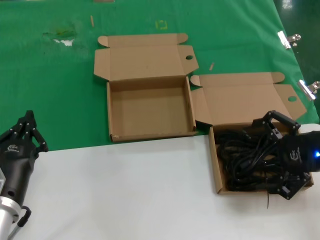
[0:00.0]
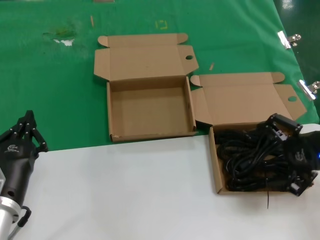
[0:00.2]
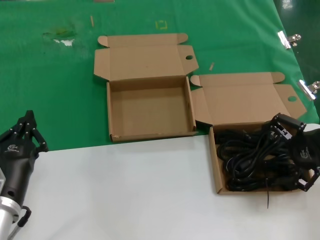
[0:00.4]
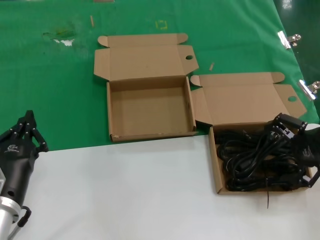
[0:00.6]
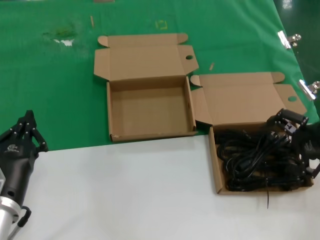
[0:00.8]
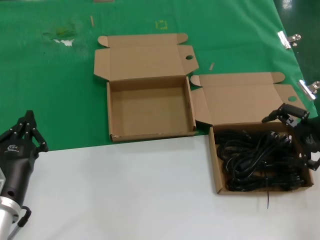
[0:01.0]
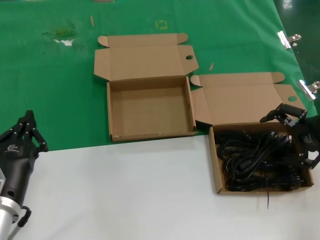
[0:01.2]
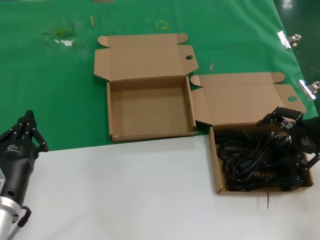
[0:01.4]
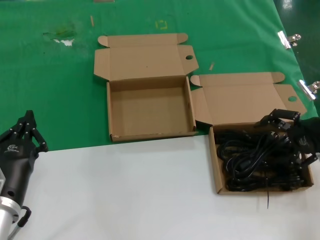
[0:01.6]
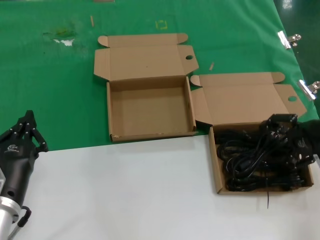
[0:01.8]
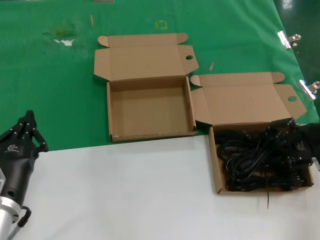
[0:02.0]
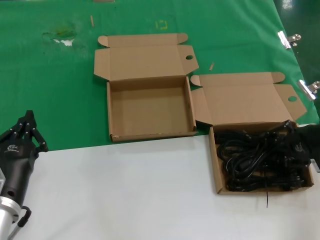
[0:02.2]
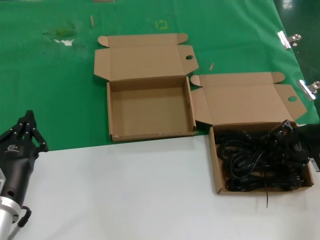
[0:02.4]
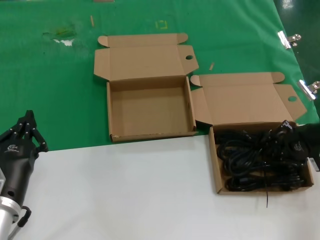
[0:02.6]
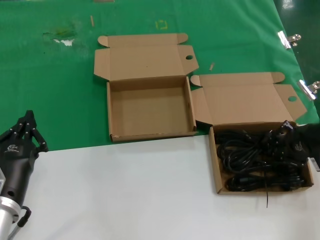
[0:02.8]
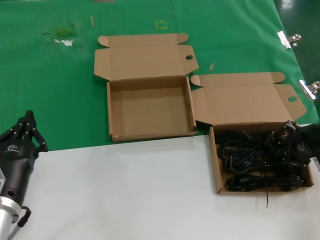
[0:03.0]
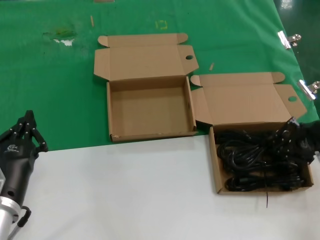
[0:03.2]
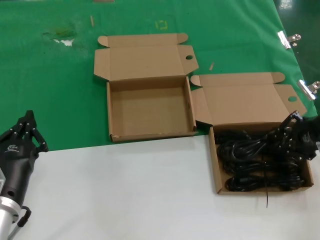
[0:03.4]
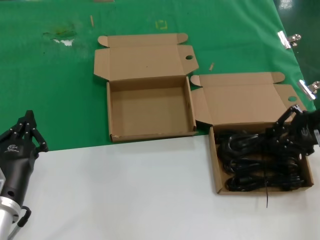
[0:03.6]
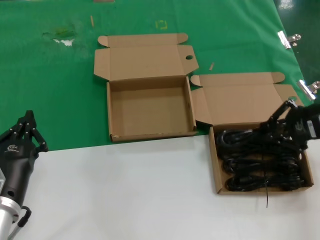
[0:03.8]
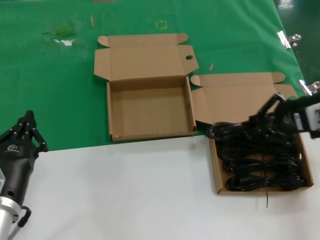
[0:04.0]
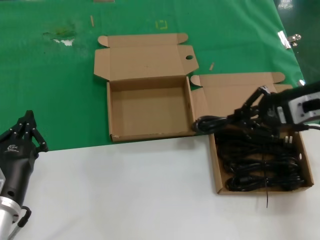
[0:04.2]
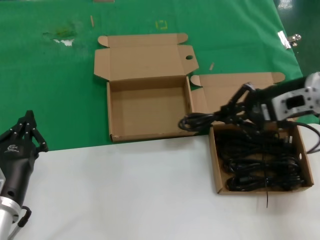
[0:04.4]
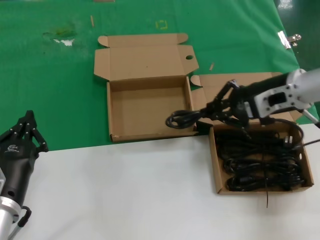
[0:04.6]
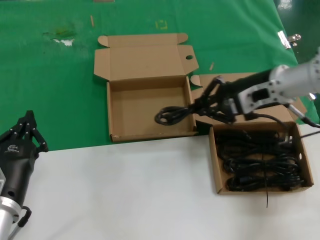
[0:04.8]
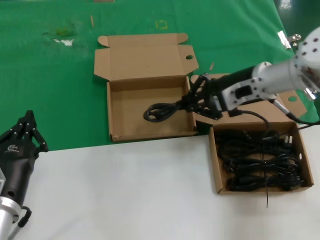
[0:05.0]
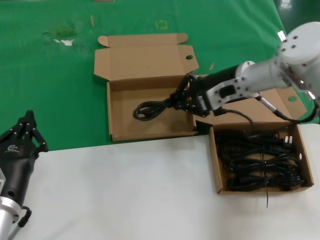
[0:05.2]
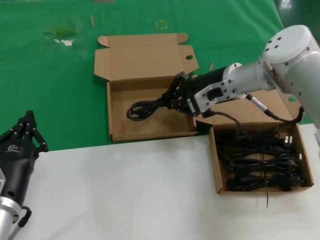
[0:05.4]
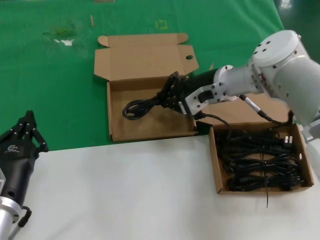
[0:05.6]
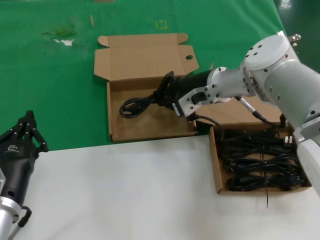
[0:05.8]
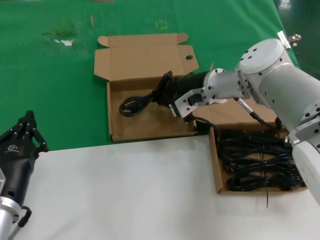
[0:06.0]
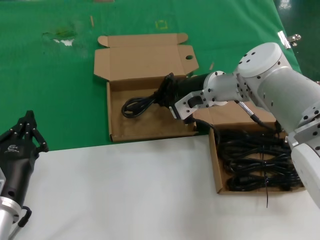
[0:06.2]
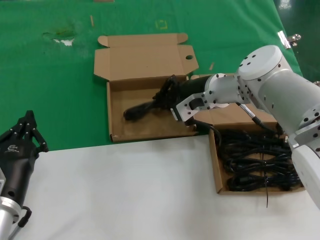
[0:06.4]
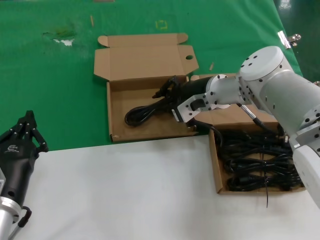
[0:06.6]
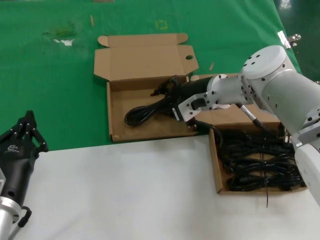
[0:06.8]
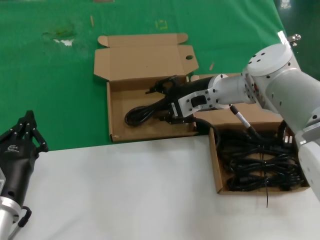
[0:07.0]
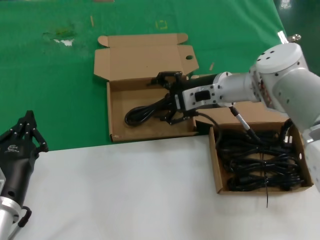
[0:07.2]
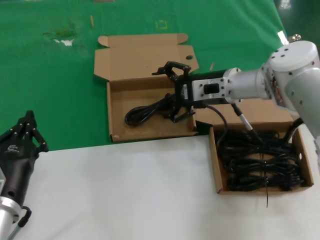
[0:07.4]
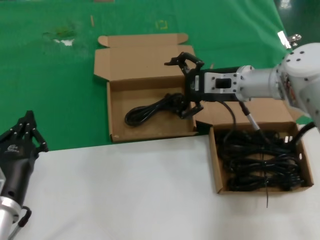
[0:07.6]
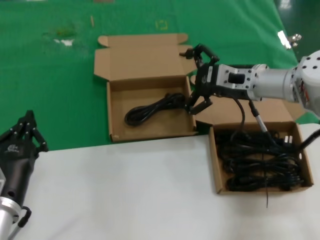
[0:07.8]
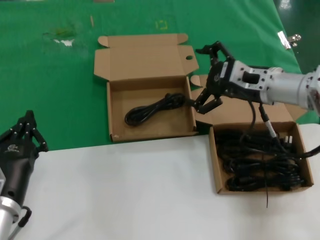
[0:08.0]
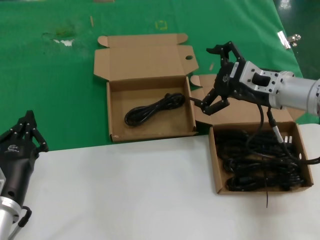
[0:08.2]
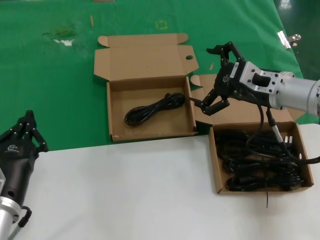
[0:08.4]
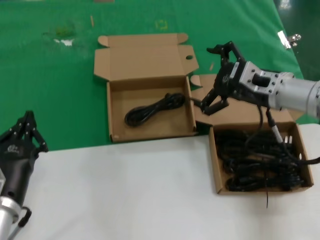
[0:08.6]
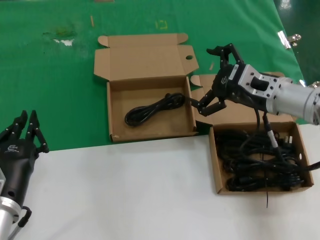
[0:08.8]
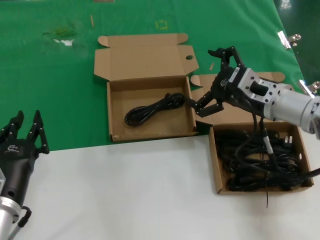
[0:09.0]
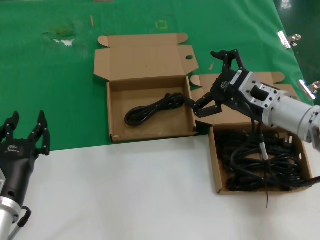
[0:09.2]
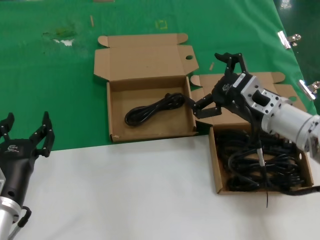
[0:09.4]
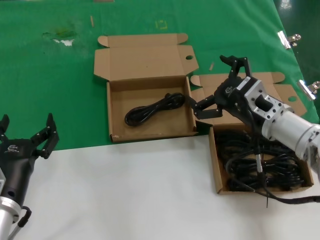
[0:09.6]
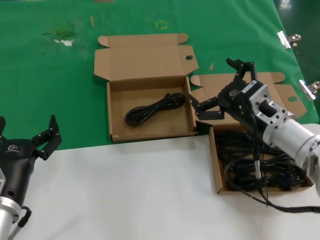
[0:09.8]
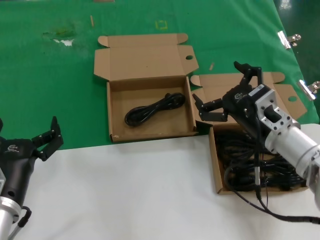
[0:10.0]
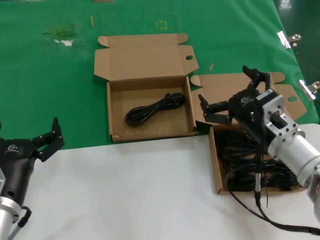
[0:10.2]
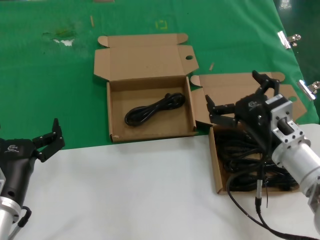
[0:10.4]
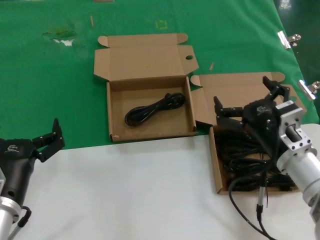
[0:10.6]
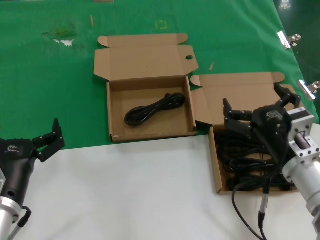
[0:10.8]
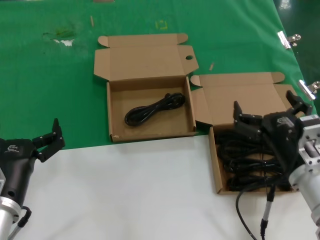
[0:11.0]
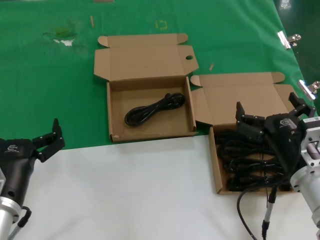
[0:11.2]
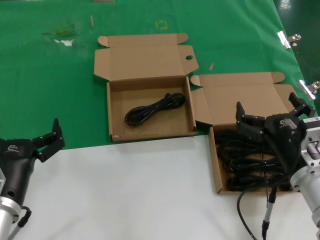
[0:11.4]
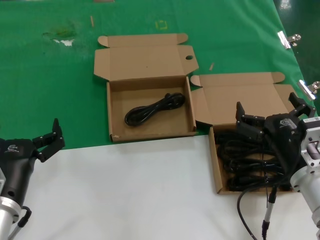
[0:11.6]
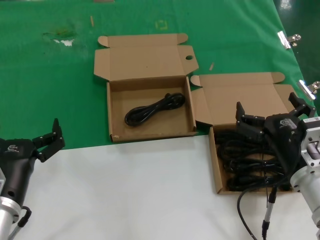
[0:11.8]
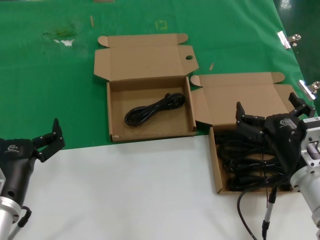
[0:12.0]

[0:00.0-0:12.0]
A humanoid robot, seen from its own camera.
Task of the whole recording: take the parts from the box containing them and put them into an empty box.
Step, 0:00.0 to 0:02.8: Grasp the data cable.
Step, 0:03.0 to 0:06.8: Place the data cable in the another box.
0:00.0 to 0:01.6: The right hand travels forward by roughly 10 cm.
0:01.6 to 0:03.0: The hands make only small movements.
0:03.0 to 0:04.4: The right hand goes some 10 cm to the left and upward.
0:04.4 to 0:06.0: The right hand is displaced to the left and forward by roughly 20 cm.
0:06.0 to 0:07.6: The right hand moves to the right, roughly 5 cm.
0:07.6 to 0:09.0: The right hand moves backward, approximately 10 cm.
0:09.0 to 0:10.4: The right hand travels backward and downward by about 10 cm.
0:10.4 to 0:12.0: The right hand heads backward, covering about 5 cm.

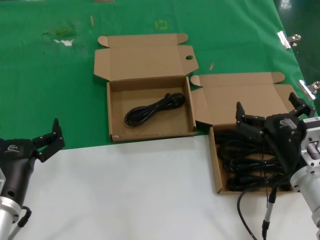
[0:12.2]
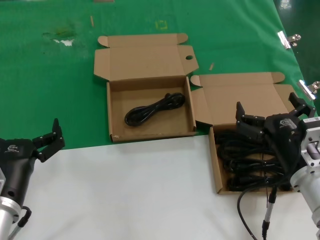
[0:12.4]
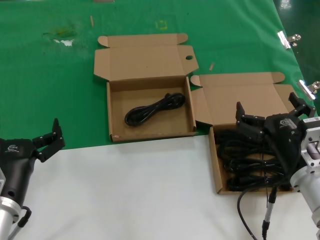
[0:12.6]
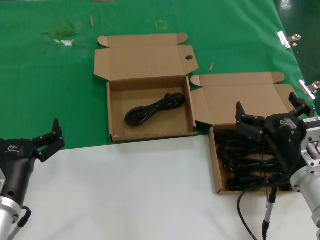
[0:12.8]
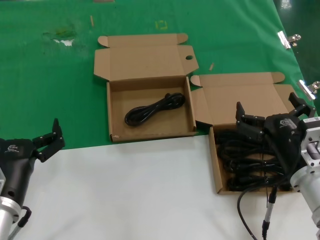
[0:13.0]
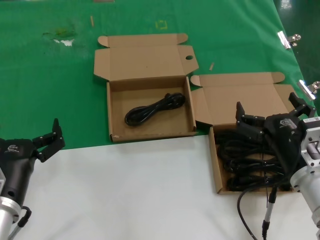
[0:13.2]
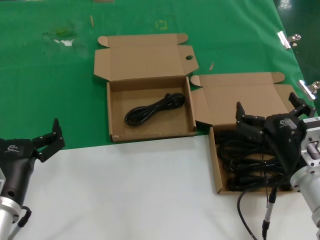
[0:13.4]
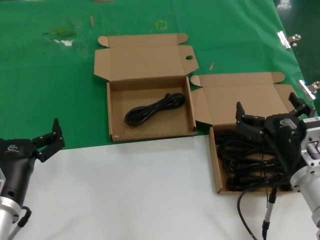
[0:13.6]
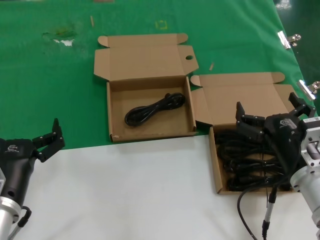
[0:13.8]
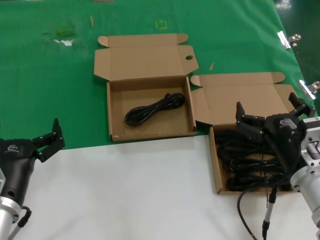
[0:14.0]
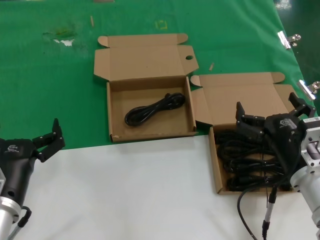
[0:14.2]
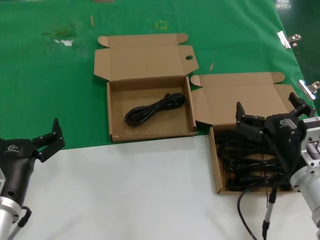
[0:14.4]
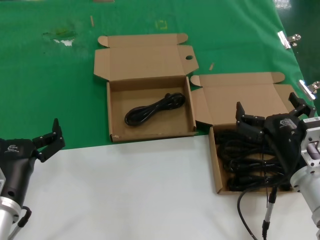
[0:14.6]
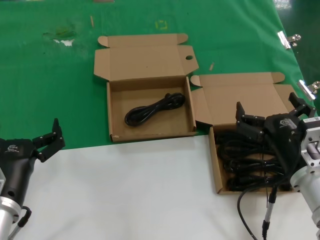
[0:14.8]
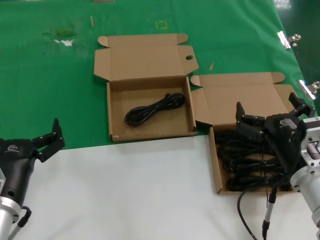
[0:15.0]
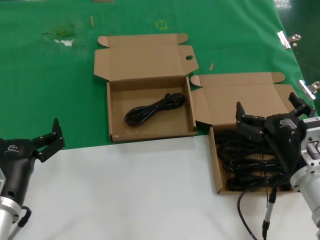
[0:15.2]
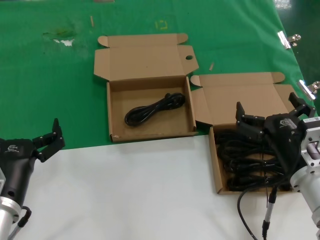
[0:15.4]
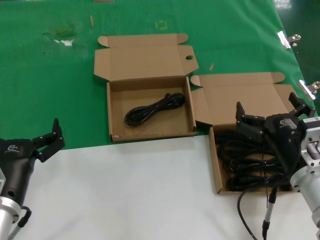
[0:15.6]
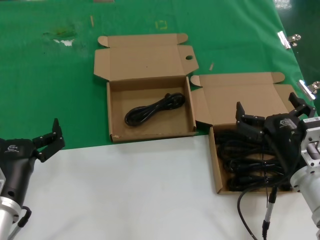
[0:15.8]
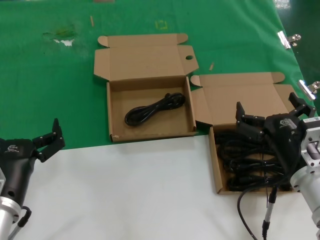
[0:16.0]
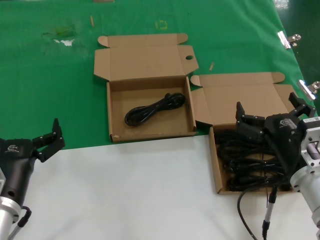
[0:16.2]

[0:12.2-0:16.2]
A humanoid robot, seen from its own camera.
Task of the whole recording: take the parts from the box containing them and put them into an empty box.
0:12.2 to 0:16.2: Both hands stay about where they are.

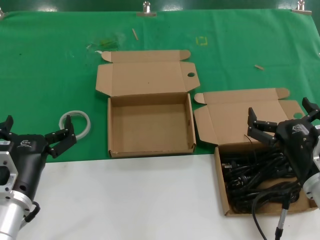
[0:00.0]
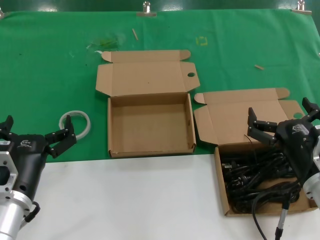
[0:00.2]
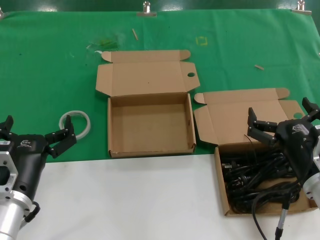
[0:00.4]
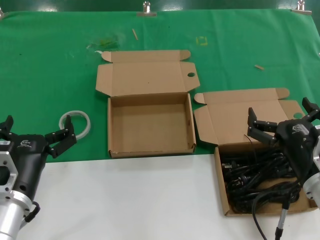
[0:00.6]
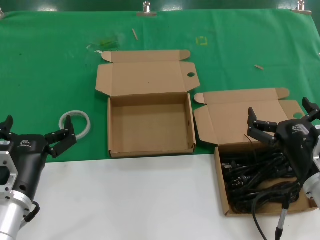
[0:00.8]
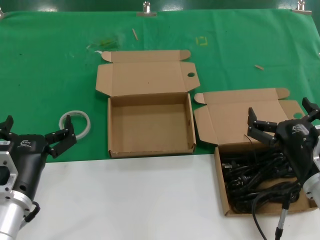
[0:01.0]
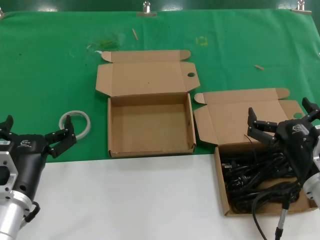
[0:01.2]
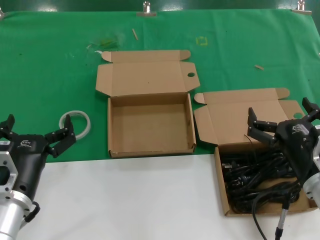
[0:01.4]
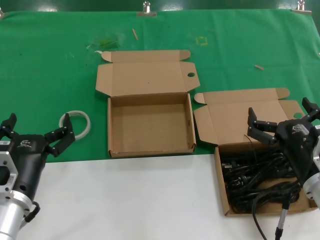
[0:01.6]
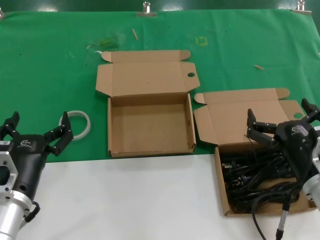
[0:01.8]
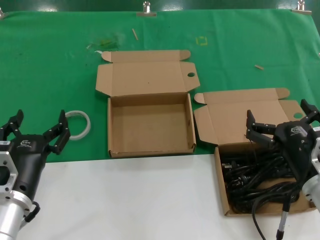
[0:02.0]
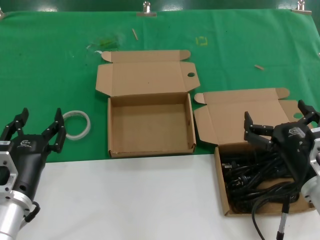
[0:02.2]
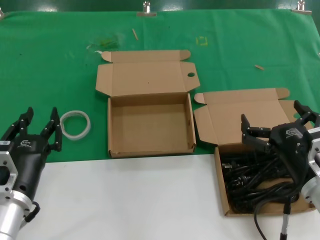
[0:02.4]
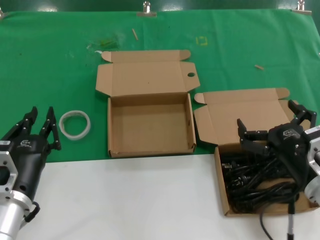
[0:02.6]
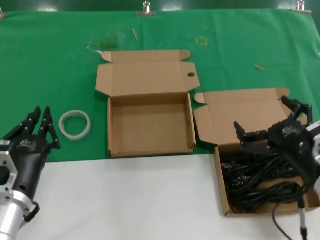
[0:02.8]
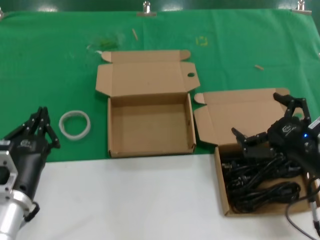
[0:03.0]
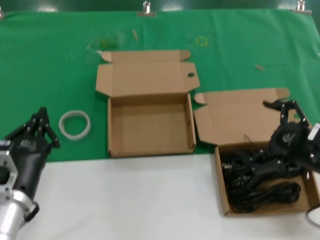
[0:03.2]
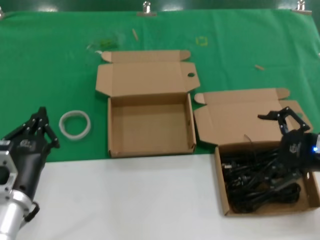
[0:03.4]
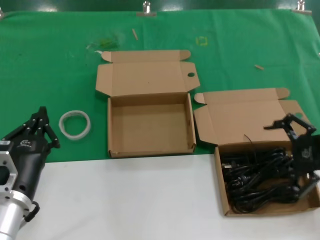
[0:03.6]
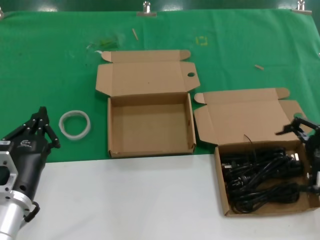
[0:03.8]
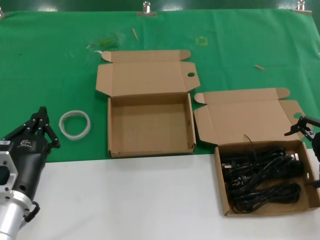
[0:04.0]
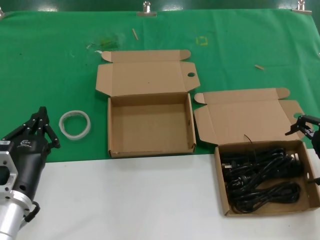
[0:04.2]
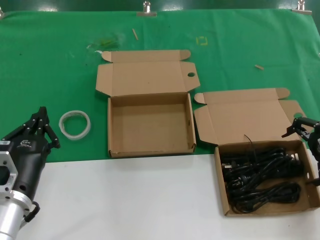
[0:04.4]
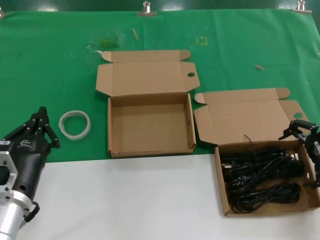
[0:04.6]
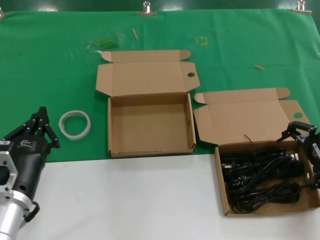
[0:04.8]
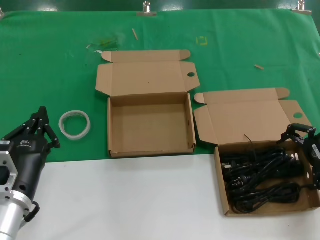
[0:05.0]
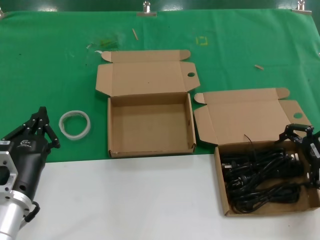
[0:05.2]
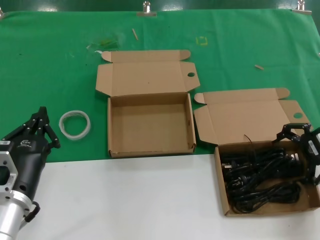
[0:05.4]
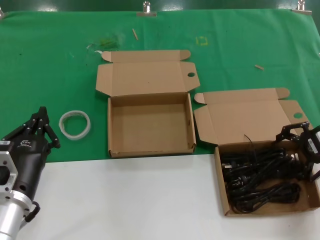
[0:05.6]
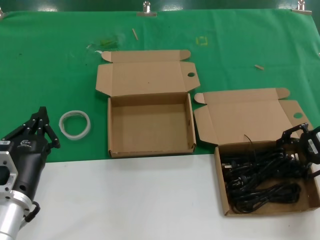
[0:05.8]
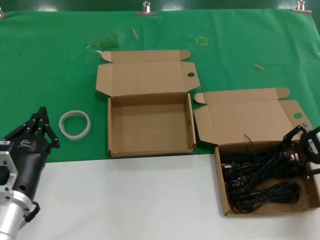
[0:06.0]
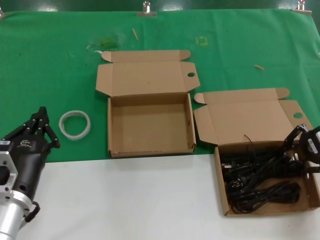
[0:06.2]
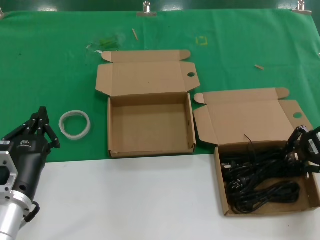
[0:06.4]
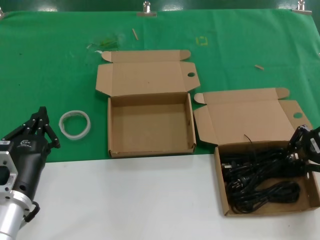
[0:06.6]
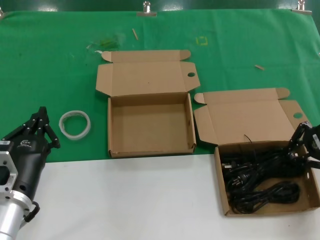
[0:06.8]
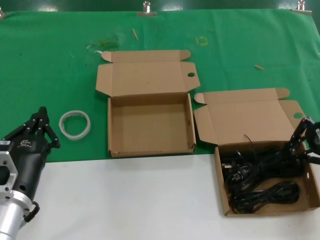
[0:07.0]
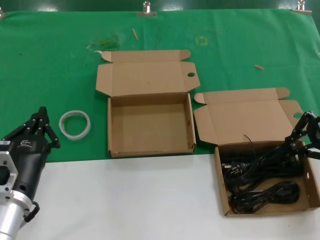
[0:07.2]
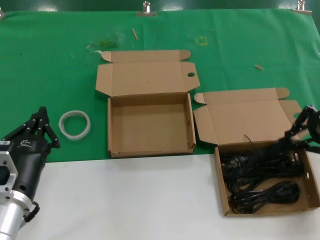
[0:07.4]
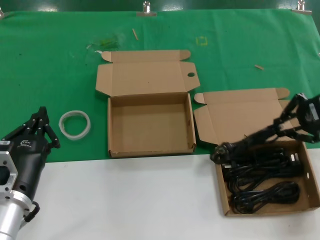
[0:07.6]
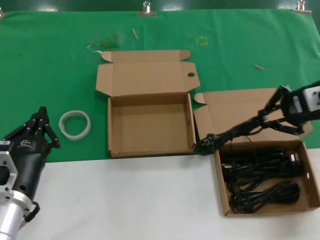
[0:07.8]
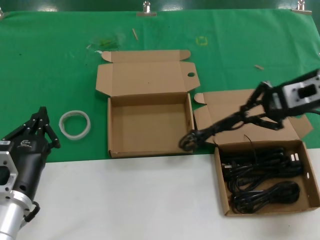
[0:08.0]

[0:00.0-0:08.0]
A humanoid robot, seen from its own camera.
Task of the whole recording: take the parts from the box containing them and put them into an empty box.
Step, 0:00.0 to 0:06.2: Grasp the data cable.
0:00.0 to 0:01.6: Both hands stay put.
0:01.6 to 0:03.2: The right hand goes roughly 10 cm to the right and upward.
0:03.2 to 0:04.8: The right hand moves forward, to the right and upward, some 15 cm.
0:04.8 to 0:06.4: Neither hand changes place.
0:06.4 to 0:08.0: The right hand moves to the left and upward, roughly 10 cm.
